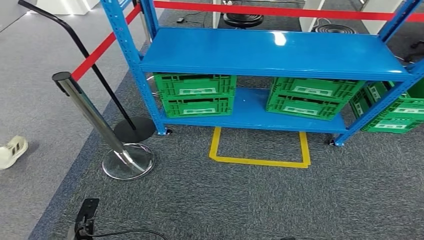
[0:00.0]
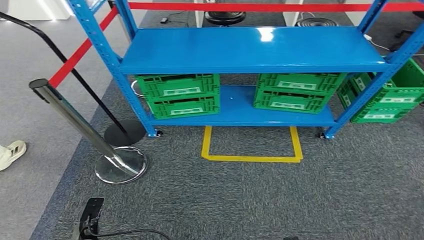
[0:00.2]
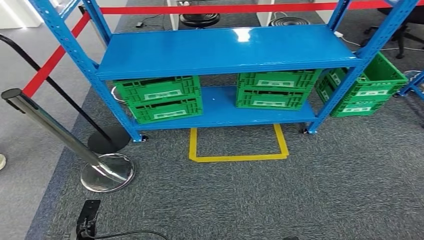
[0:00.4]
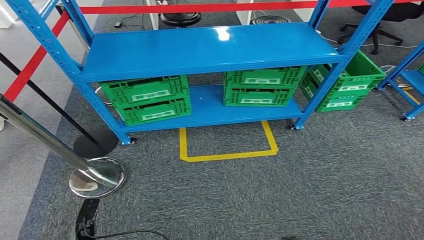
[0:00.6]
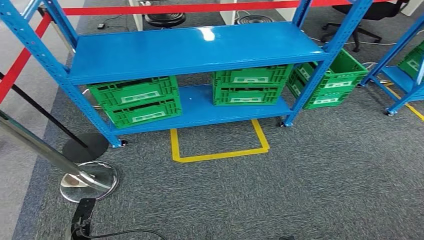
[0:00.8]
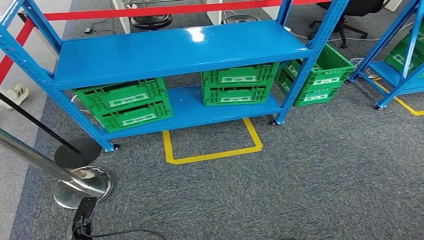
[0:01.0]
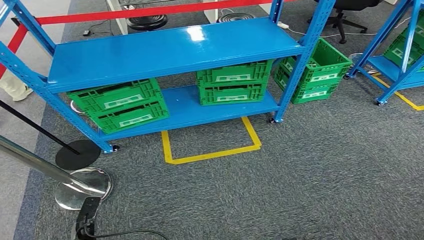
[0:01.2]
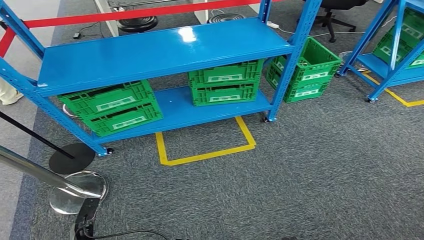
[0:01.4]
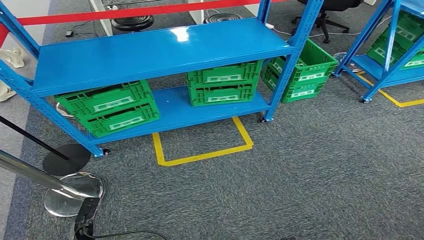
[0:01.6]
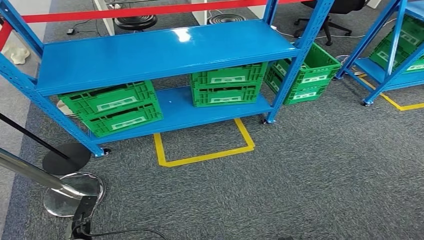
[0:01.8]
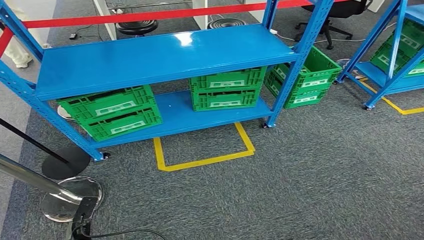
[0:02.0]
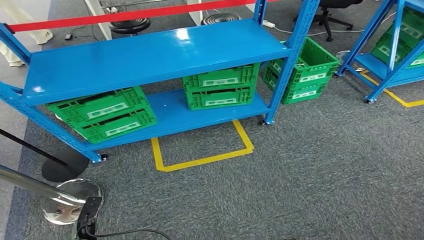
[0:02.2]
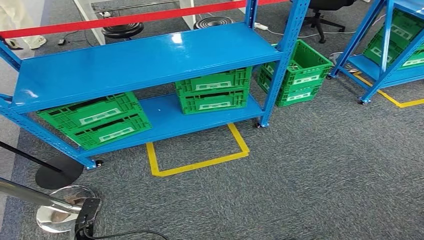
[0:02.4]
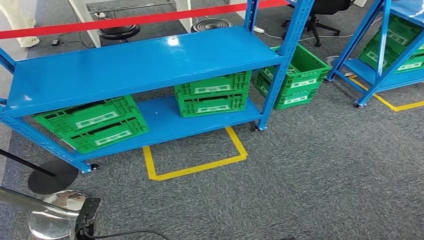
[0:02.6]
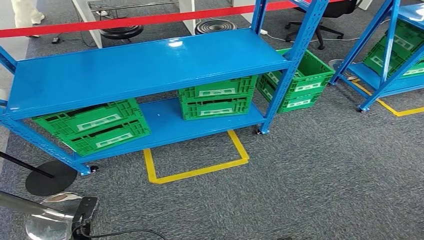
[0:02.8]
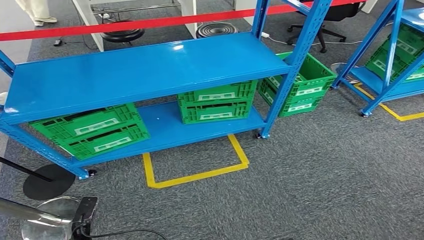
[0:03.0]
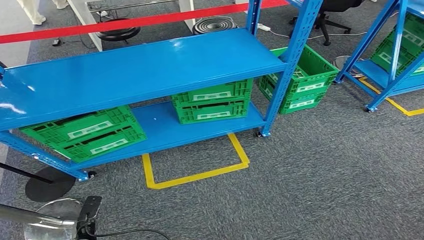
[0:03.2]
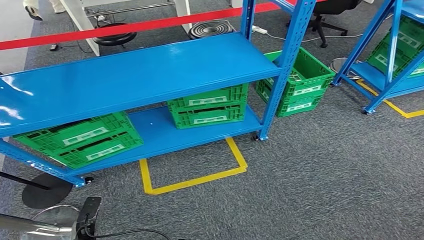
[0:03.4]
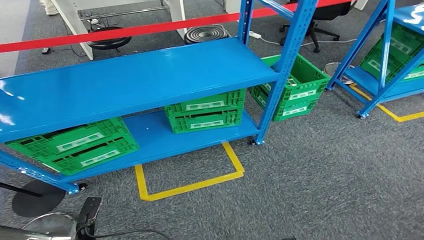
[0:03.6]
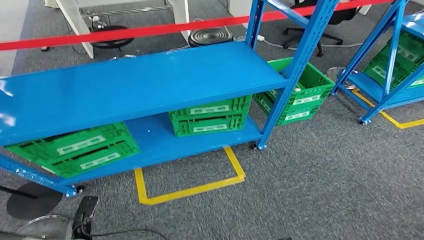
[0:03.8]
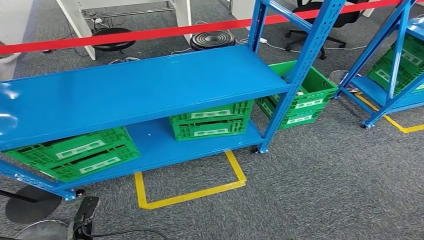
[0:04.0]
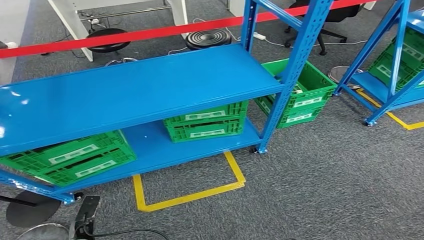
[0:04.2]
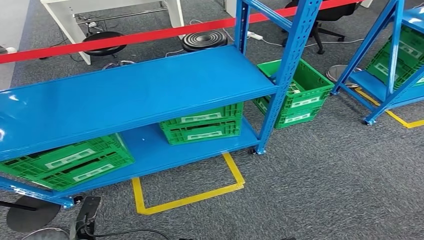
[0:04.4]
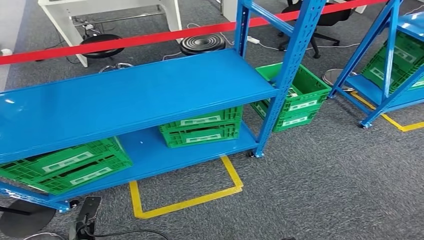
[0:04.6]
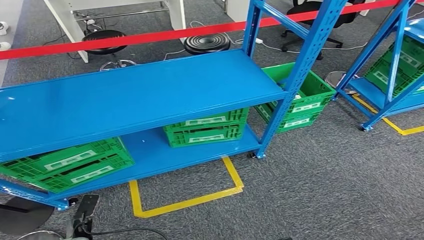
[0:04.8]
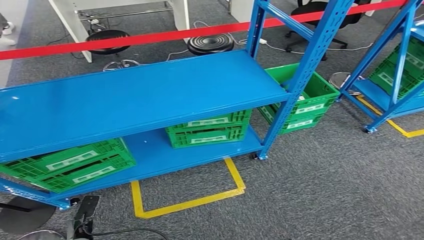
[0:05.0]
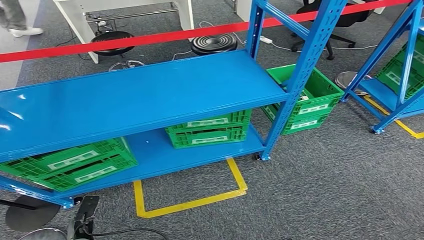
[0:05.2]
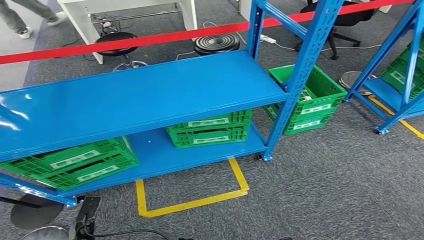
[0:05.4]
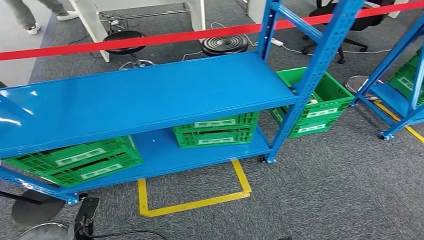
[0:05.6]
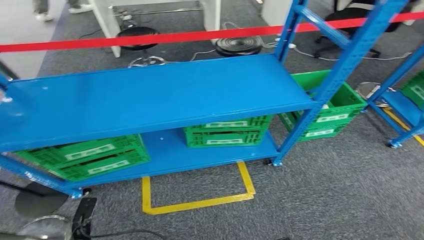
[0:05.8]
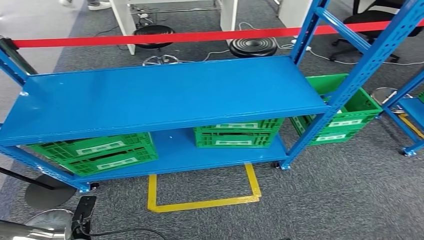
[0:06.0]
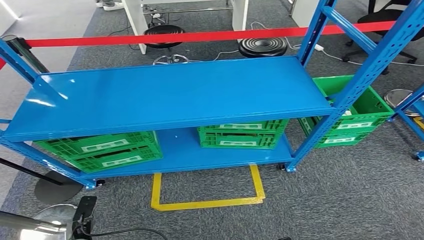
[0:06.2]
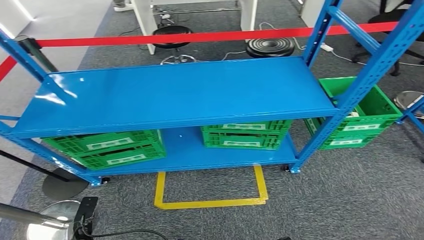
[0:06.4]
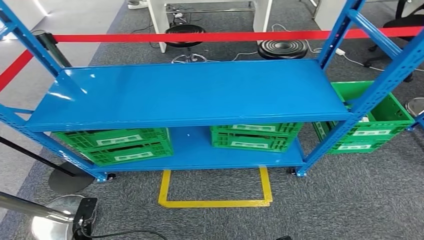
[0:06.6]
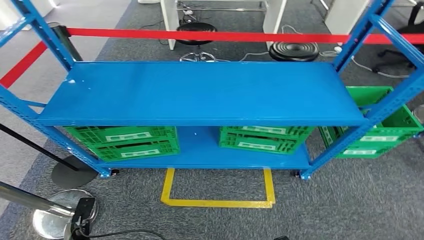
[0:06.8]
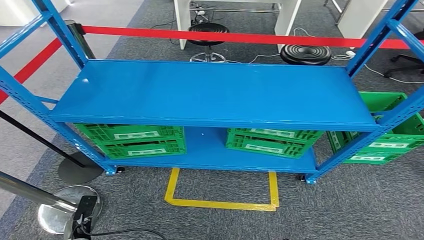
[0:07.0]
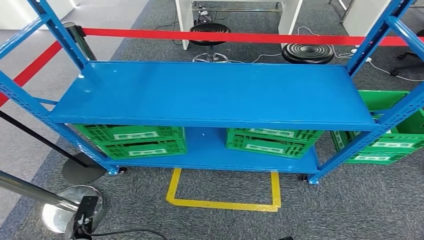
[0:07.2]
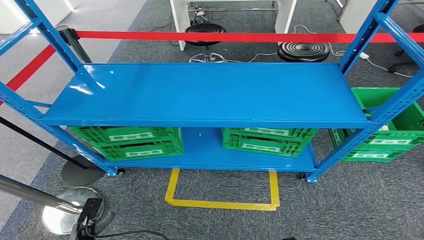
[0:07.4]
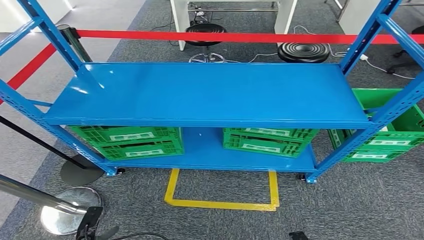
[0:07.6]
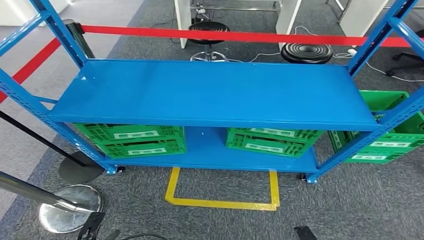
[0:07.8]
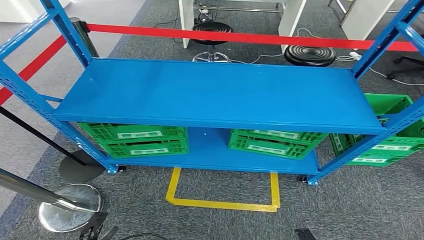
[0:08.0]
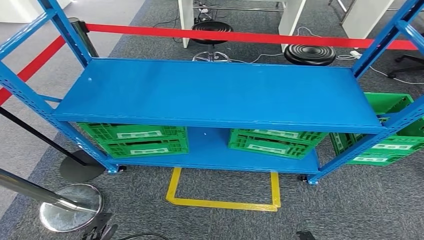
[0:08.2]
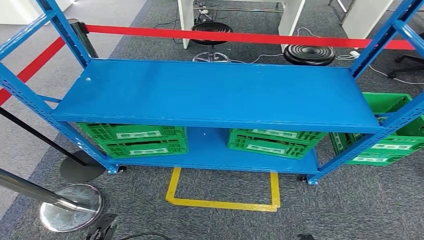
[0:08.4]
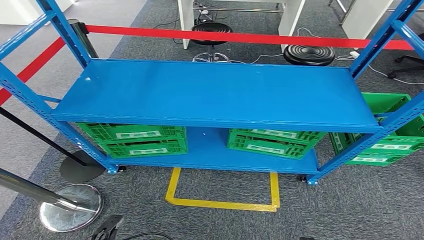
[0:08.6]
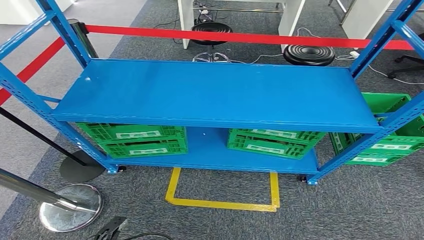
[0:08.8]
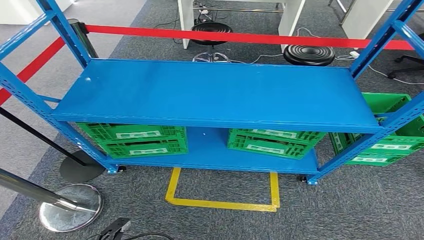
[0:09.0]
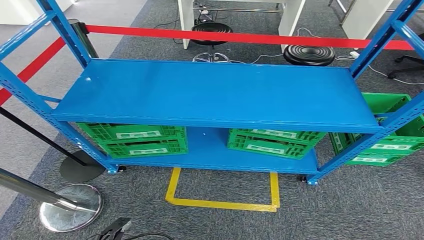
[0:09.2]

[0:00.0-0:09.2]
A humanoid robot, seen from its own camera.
Step, 0:00.0 to 0:09.2: Return to the initial position at the workbench.
